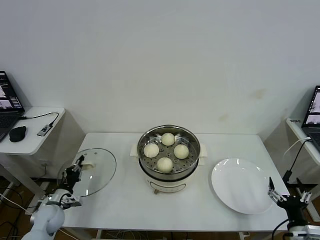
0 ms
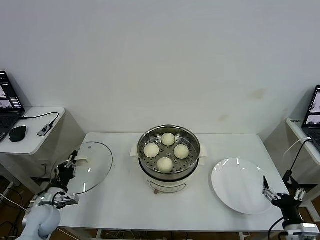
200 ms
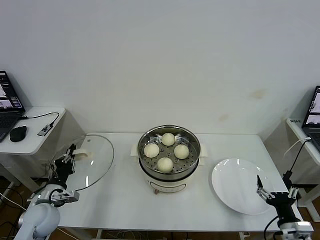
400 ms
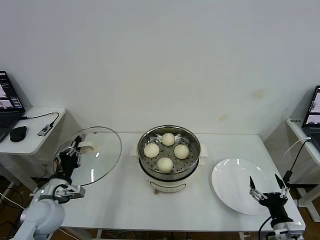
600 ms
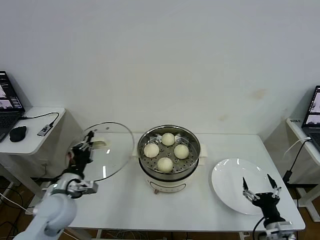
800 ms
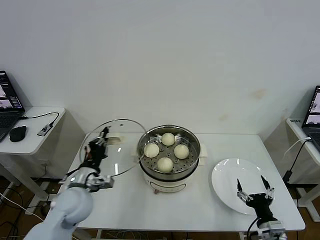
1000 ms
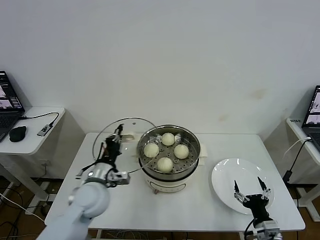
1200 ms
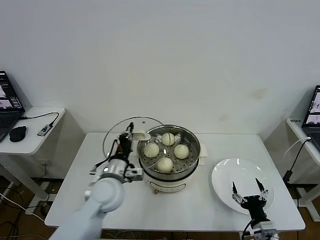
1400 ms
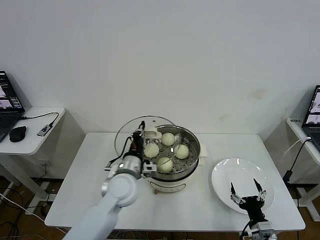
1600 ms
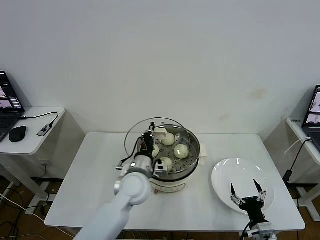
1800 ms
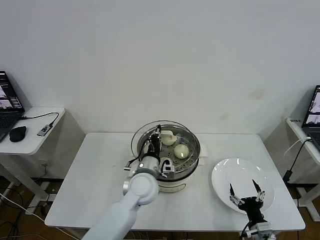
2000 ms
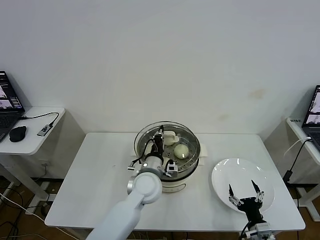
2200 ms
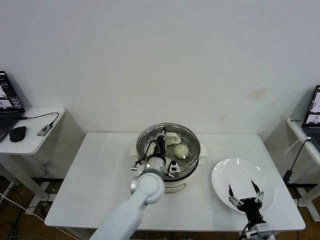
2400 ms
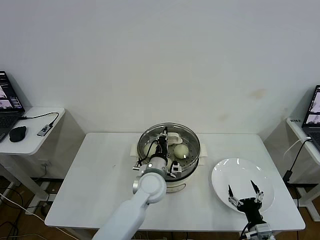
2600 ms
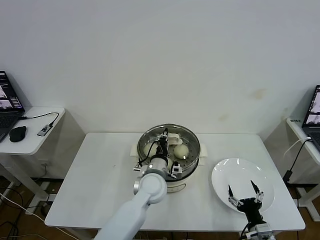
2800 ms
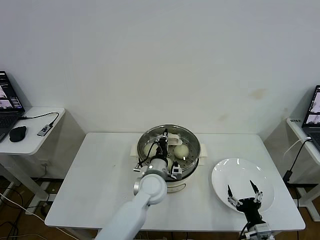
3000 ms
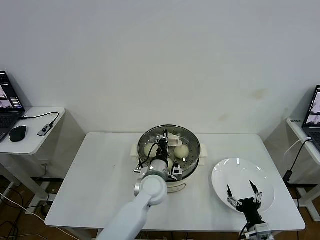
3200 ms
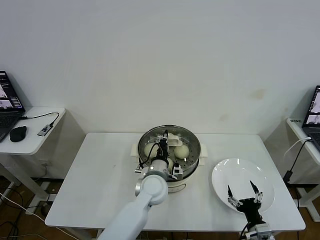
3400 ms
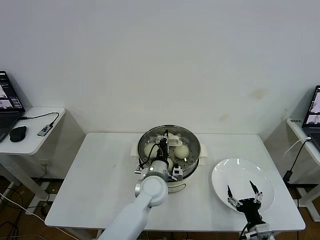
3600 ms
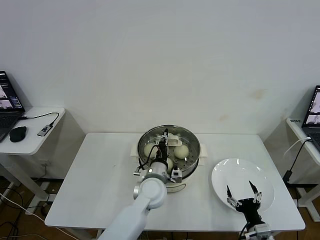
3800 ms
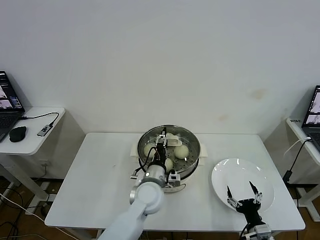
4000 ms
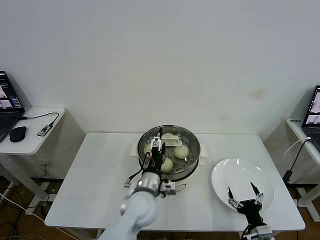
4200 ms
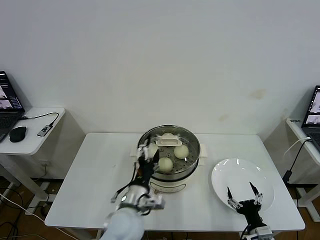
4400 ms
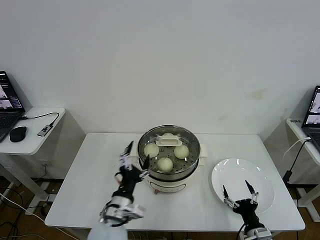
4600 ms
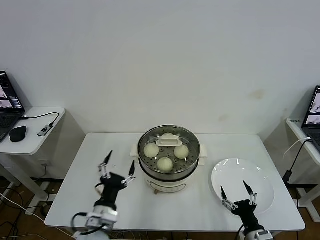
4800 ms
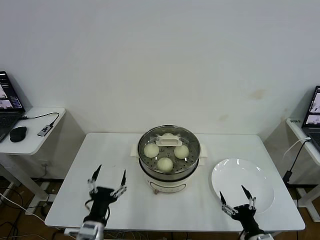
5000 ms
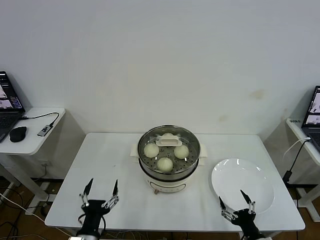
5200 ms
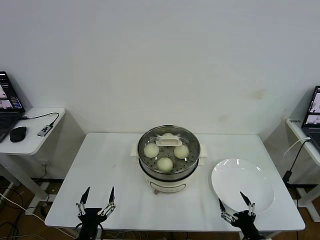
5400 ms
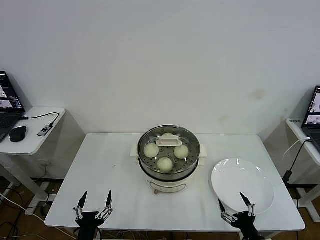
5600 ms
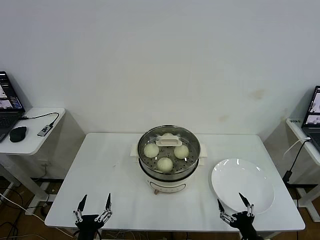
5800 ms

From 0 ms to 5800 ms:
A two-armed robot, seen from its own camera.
Task of the whole recording: take steamed baozi put them in steamer then cover it.
Step, from 0 ms to 4000 ms: Place the pot lid on the steamer with left gripper.
From 0 ms to 1400 ms: The left gripper heads to the right and upward, covering some 30 cm, while the right gripper goes roughly 10 cm to the left and downward.
From 1400 ms to 2800 ms: The left gripper heads to the right, covering roughly 15 cm.
From 2800 ms to 4400 ms: The left gripper heads backward and to the left, covering approximately 10 cm, and opens.
From 4400 ms to 5800 ms: The left gripper shifts roughly 25 cm backward, to the left and downward.

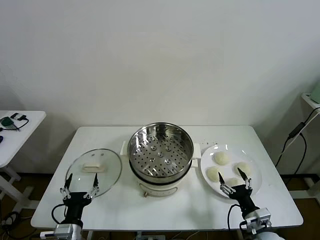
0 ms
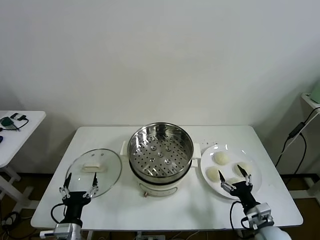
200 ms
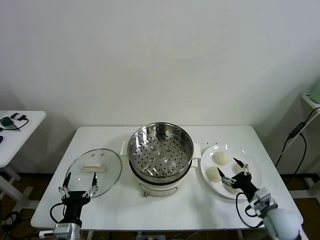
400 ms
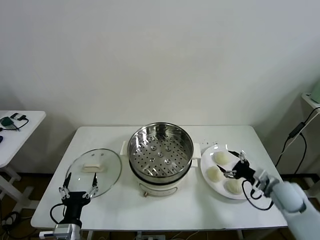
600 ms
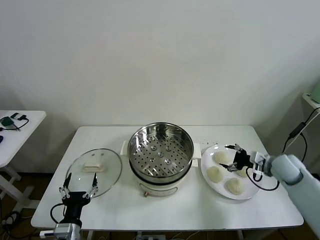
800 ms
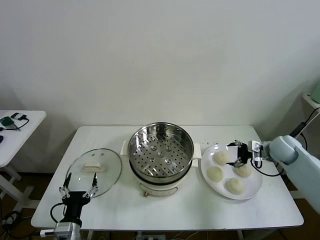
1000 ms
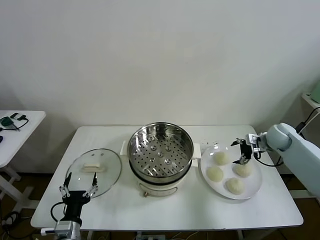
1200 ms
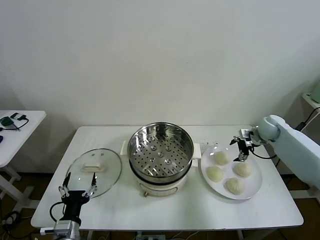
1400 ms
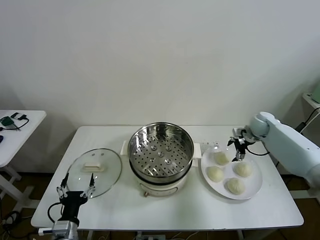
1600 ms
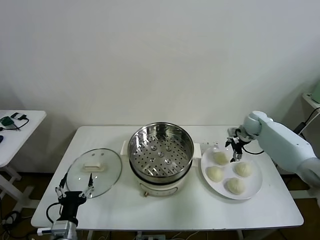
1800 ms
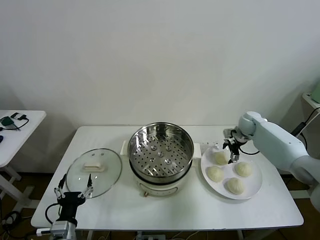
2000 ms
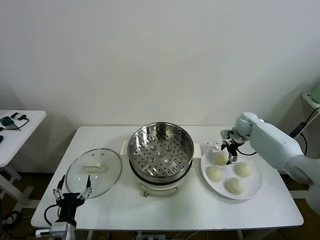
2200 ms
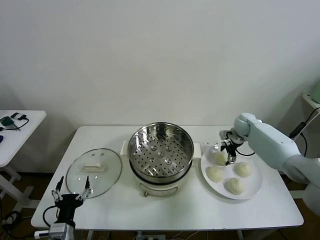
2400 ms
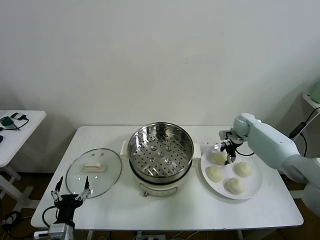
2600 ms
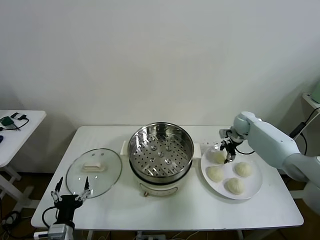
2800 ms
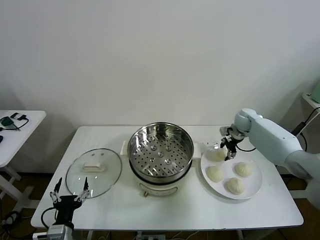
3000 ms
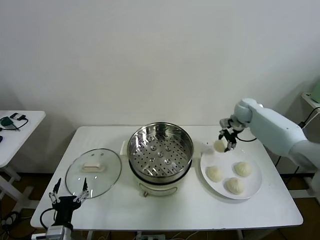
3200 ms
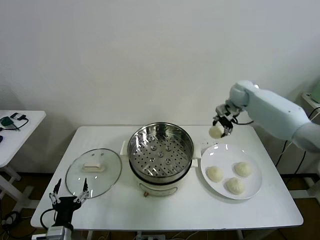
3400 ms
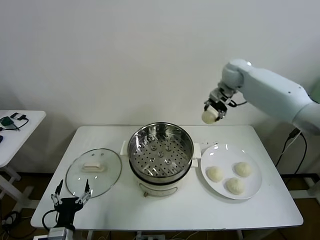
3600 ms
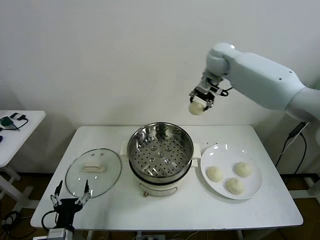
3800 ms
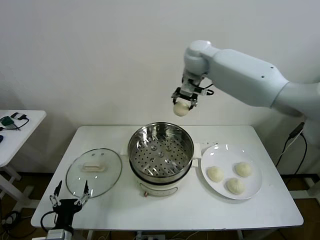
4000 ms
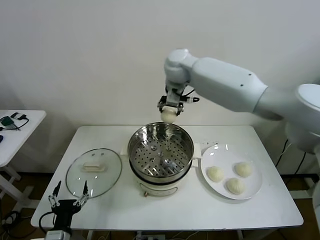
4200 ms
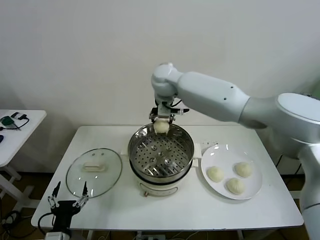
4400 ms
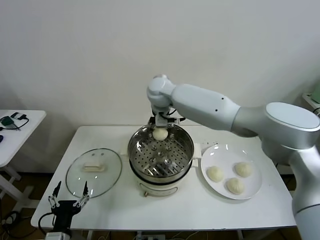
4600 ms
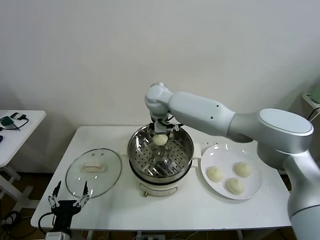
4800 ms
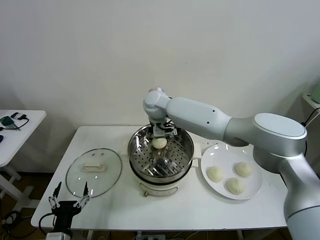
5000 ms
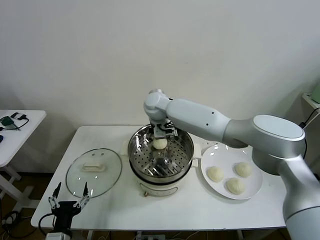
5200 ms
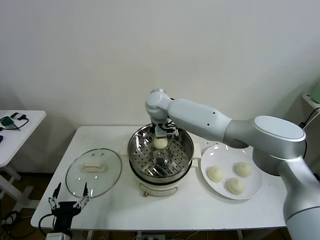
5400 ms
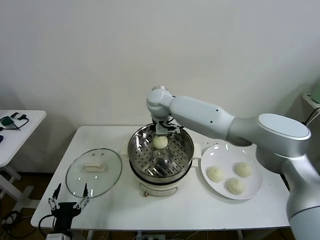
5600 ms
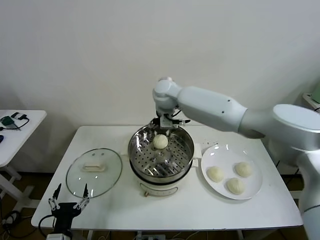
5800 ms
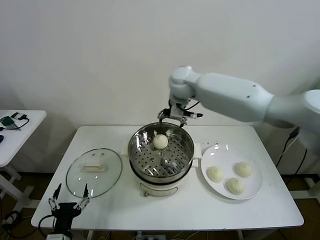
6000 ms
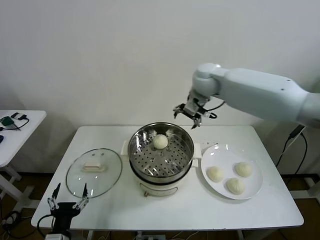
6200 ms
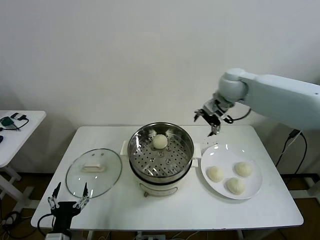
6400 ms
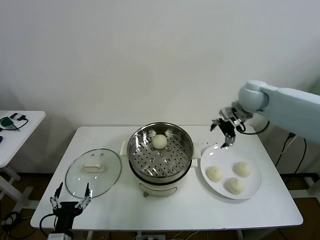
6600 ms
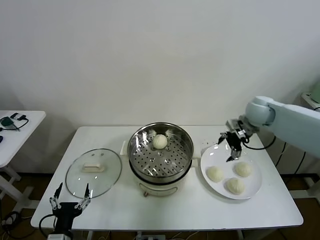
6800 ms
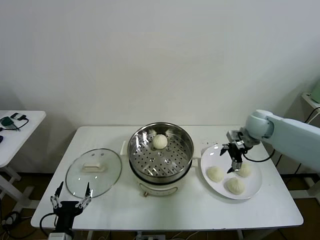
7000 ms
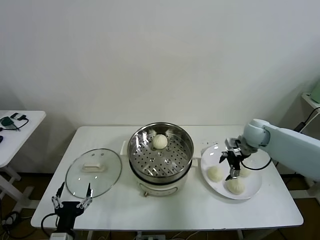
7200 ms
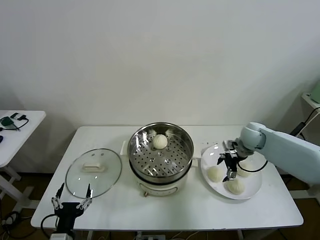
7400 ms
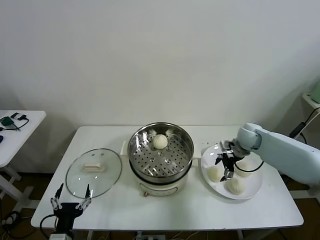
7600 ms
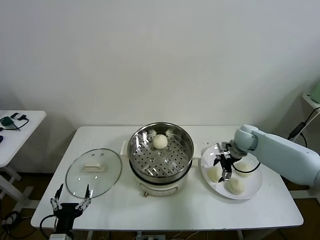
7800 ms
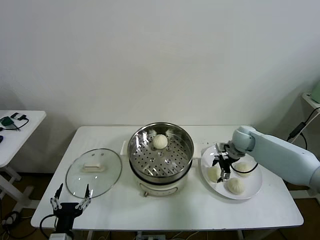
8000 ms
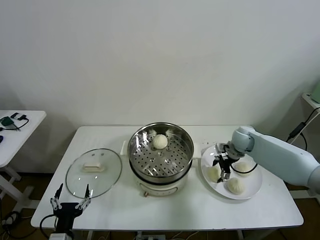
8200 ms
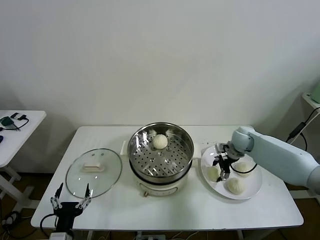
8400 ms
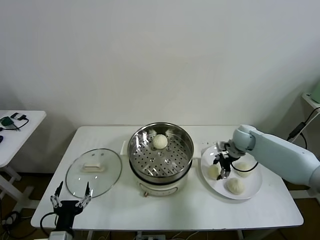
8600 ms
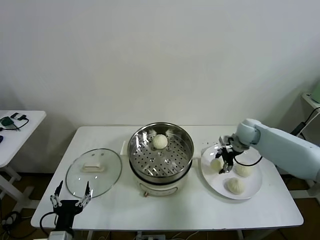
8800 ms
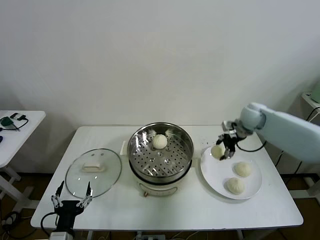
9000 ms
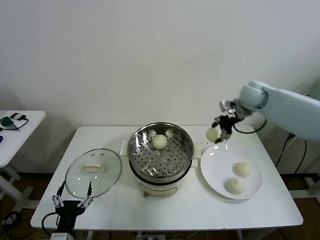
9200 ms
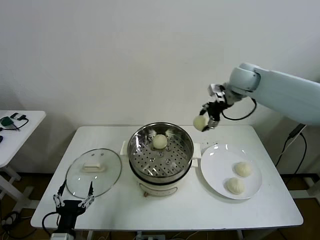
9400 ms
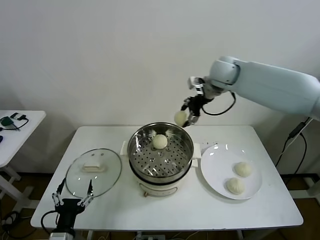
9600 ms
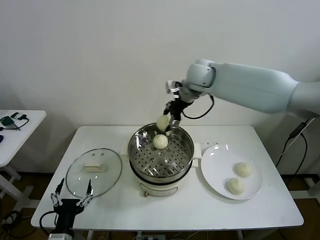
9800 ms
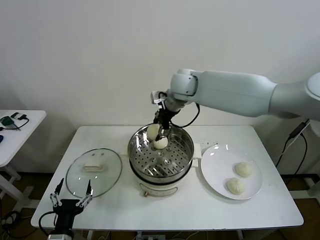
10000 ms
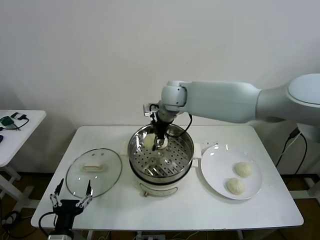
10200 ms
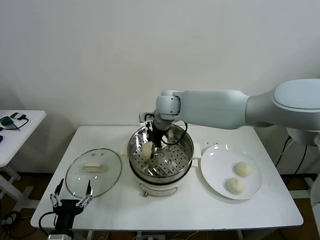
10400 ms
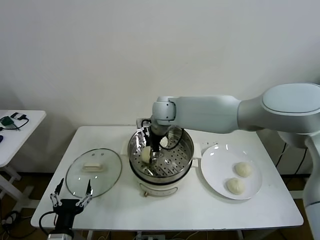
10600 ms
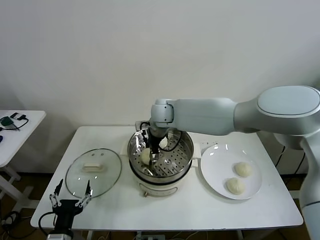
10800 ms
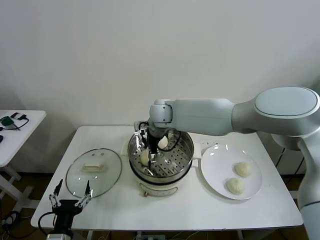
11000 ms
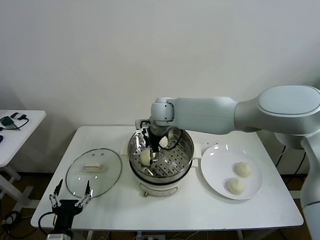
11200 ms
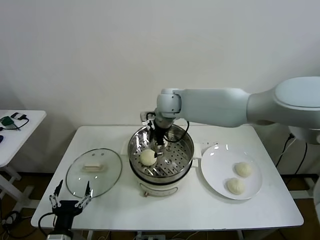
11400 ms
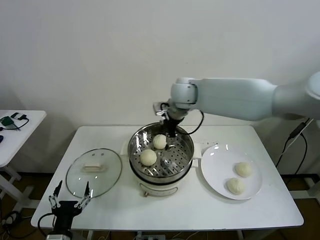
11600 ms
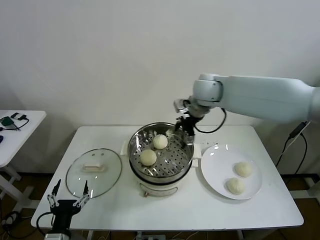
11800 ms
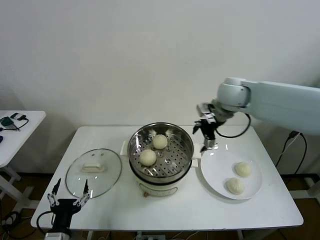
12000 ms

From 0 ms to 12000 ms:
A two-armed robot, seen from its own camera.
Task of the whole recording: take steamed baozi put them in steamer then cover it.
Step, from 0 ms to 2600 ms: Grasp the baozi in the plate with right gripper.
Step, from 2800 ms to 5200 ms: Place the baozi on the steamer with right gripper.
Step, from 5600 ms to 8600 ms: Grasp the baozi in the plate with right gripper.
Step, from 8800 ms to 11000 ms: Place the baozi on the steamer with right gripper.
From 1600 ms to 3000 ms: The right gripper moves about 5 cm, and closes its fingers.
From 3000 ms to 4400 ms: The right gripper heads to the left and upward, covering approximately 40 cm.
From 4400 ms to 6000 ms: The right gripper goes some 10 cm to the right, and opens its fingers.
From 6000 ms to 7600 ms: The right gripper travels downward and to the right by approximately 30 cm.
From 7600 ms to 9000 ms: The right gripper travels upward by approximately 10 cm, and closes up.
From 9000 ms to 10400 ms: The right gripper moves to the left, roughly 30 cm.
From 10400 ms to 12000 ms: The right gripper shifts roughly 20 cm to the right, and opens.

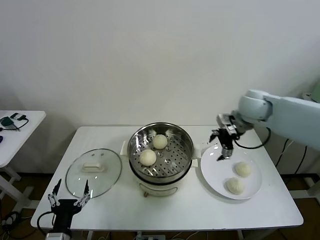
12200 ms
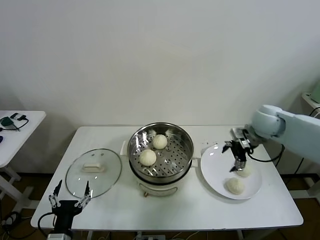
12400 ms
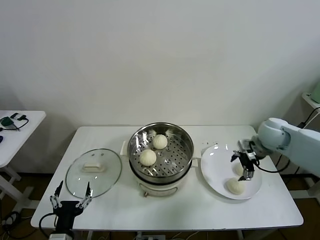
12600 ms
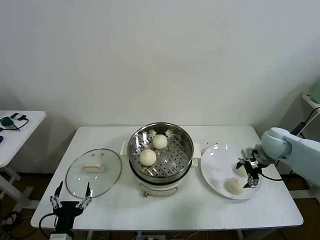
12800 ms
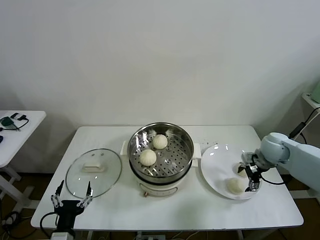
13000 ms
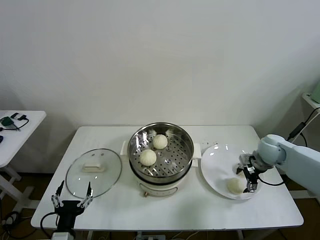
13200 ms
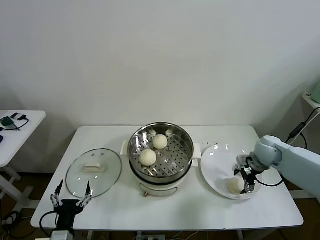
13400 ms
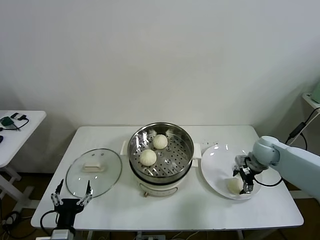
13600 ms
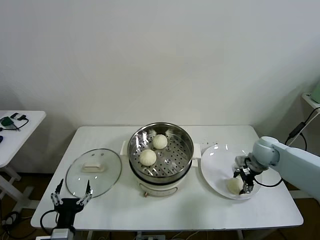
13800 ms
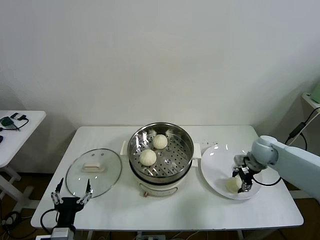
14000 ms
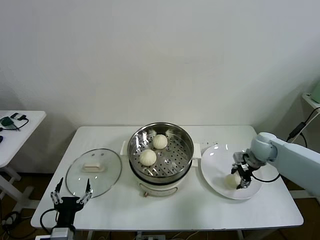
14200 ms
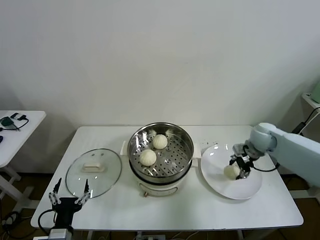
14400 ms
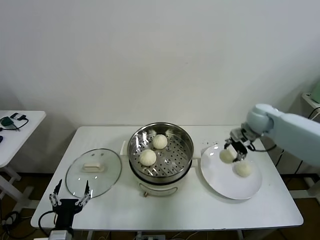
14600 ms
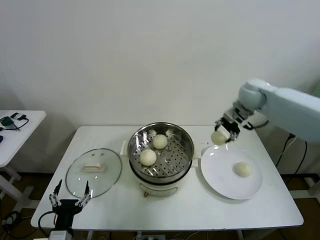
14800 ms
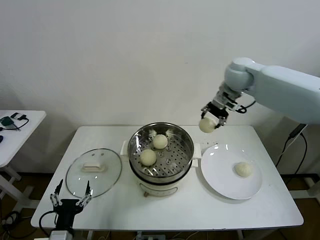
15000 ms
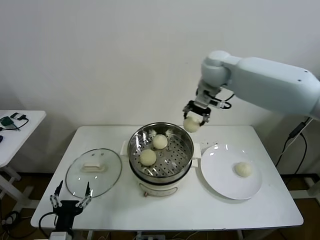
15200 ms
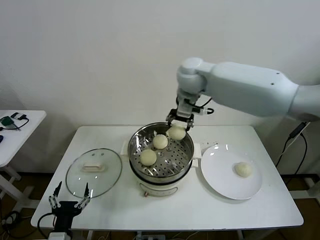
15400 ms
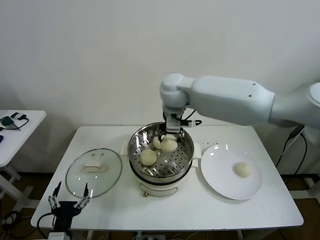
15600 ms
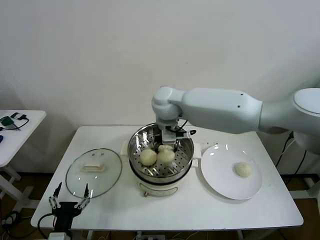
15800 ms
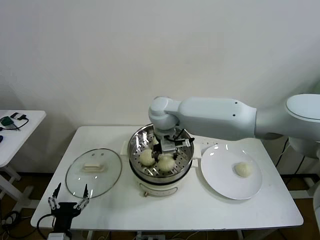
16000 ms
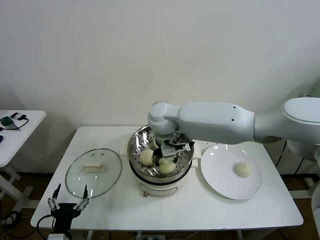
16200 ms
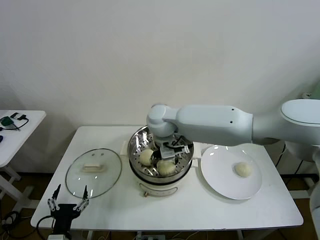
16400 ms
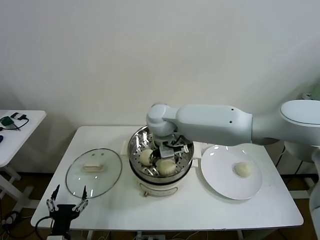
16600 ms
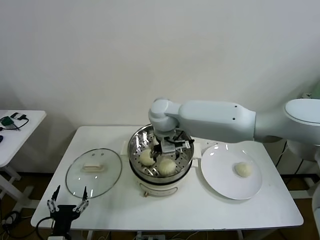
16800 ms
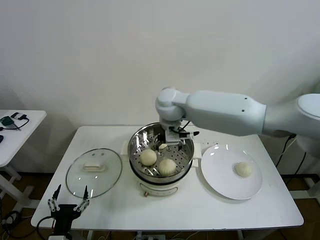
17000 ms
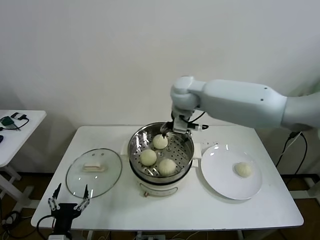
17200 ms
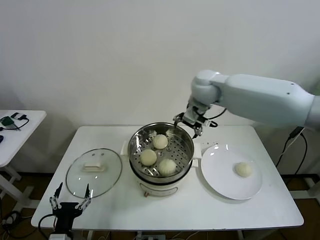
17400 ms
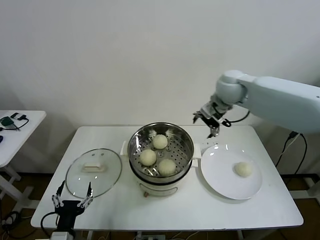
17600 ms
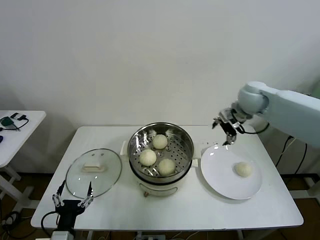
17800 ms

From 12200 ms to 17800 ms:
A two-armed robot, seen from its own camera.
Task of the whole recording: take steamed baozi put them in steamer then cover it.
Step, from 12200 ms to 14000 ms: Grasp the baozi in the plate with right gripper.
Step, from 14200 ms to 16400 ms: Place the baozi on the steamer with right gripper.
From 12200 ms to 13600 ms: The right gripper travels downward and to the right by about 20 cm.
From 13600 ms to 15000 ms: The right gripper heads upward and to the left, covering about 30 cm, and closes up.
From 15000 ms to 16400 ms: The right gripper travels to the left, downward and backward by roughly 25 cm, and opens its fingers.
From 16400 ms to 17800 ms: The right gripper is displaced to the right by roughly 30 cm.
